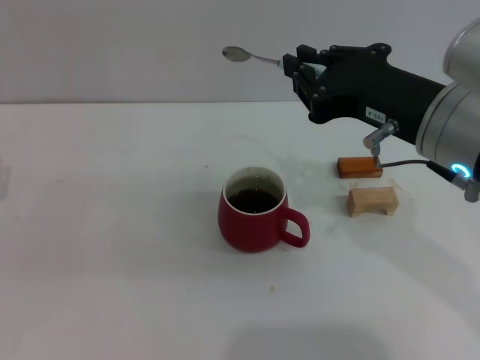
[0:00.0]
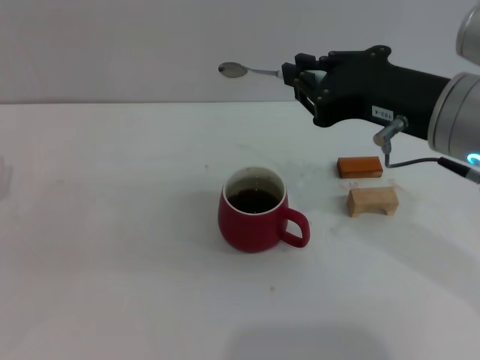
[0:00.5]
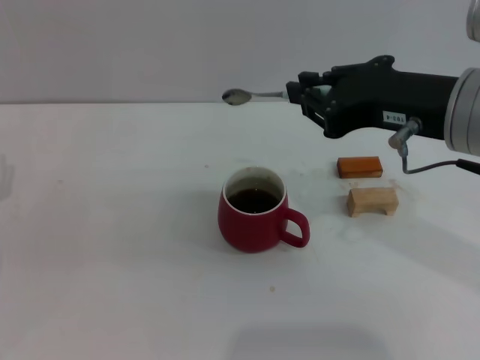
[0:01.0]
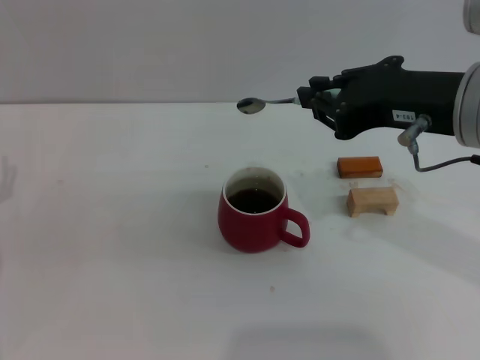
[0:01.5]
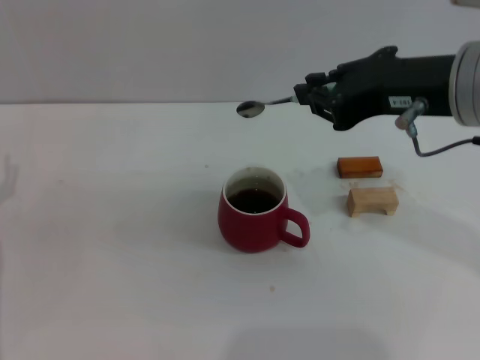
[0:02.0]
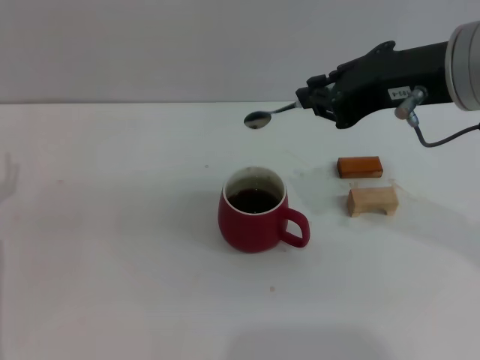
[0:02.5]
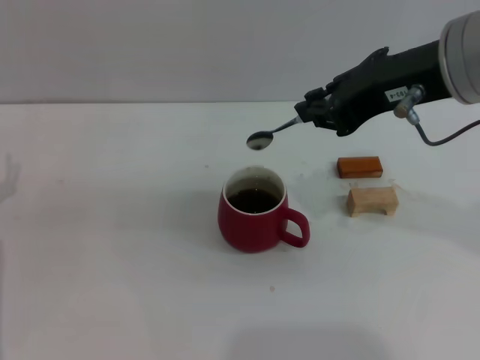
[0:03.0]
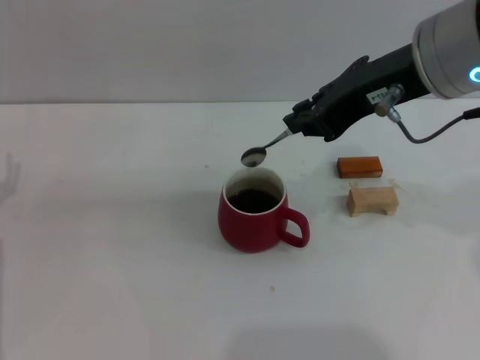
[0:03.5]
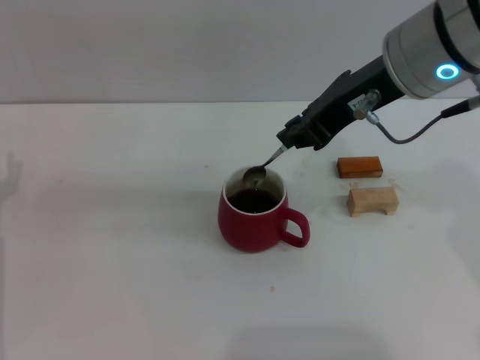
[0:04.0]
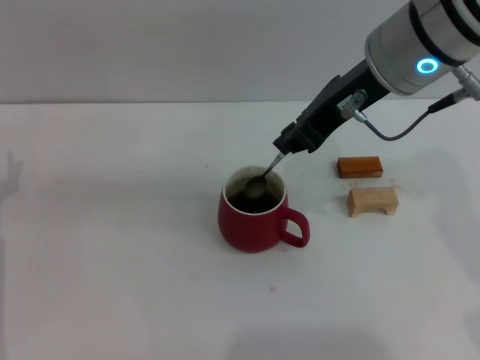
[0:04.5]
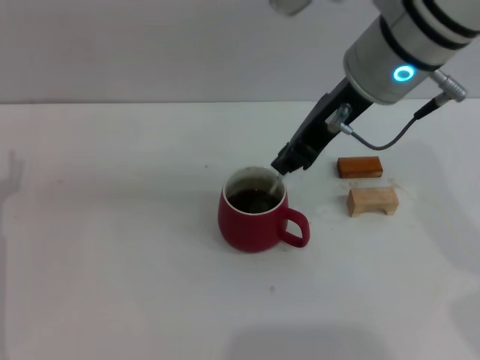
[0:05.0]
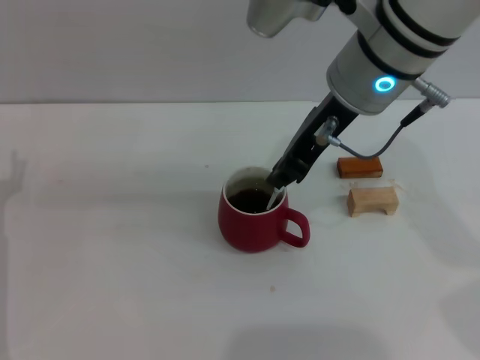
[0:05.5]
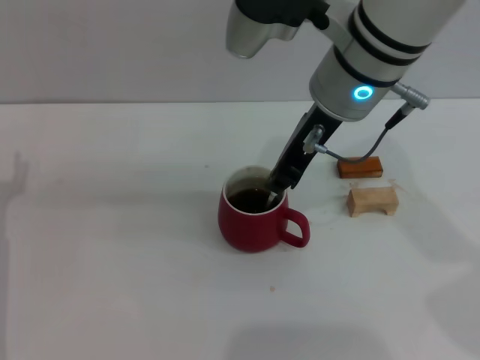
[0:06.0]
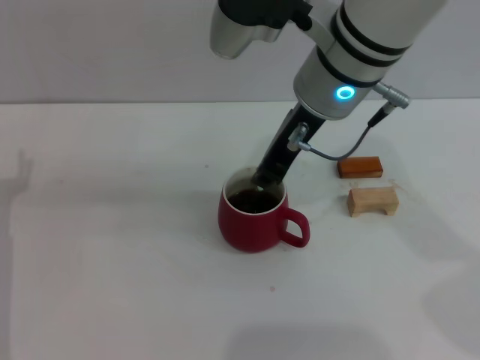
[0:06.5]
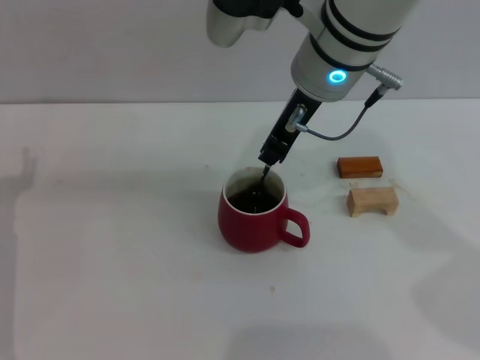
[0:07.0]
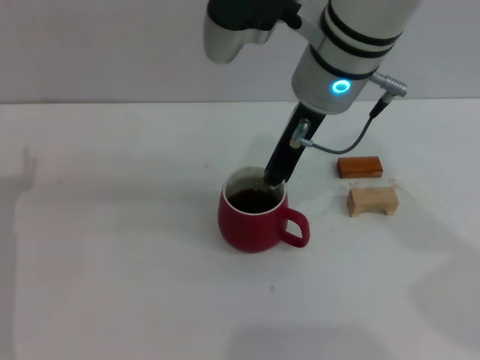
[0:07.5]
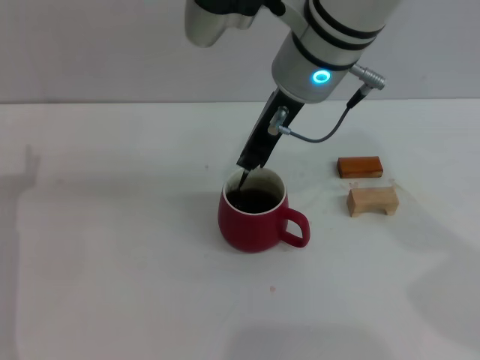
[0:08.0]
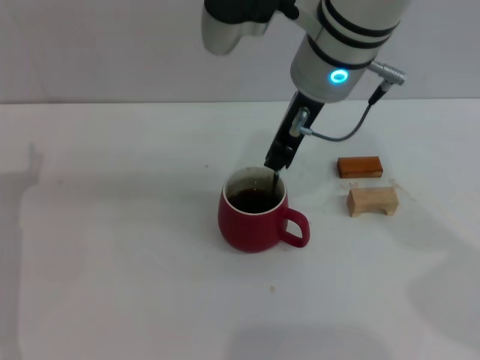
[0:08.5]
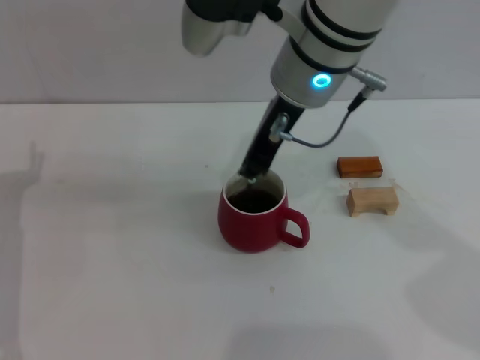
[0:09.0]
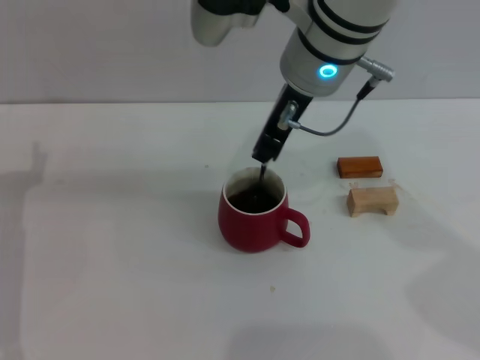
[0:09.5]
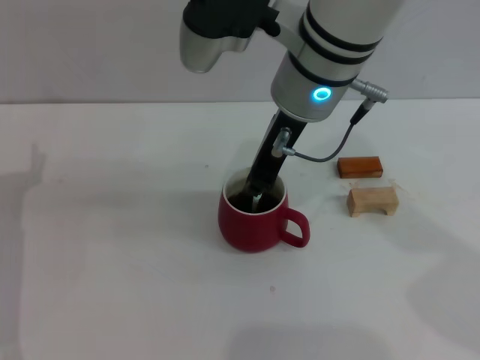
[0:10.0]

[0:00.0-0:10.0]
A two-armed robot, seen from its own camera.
Task of the whole recording: Move the red cup to the center, lift the blue spoon, stir it three times in the cup, and put the spoon into the cup.
0:00.0 to 0:02.0: The right gripper shifts by roughly 5 cm.
0:02.0 to 0:04.0: The right gripper travels forward by approximately 5 cm.
0:04.0 to 0:06.0: The right gripper travels to the left by roughly 5 cm.
0:06.0 to 0:10.0: The grippers stay close to where they were, moving slightly.

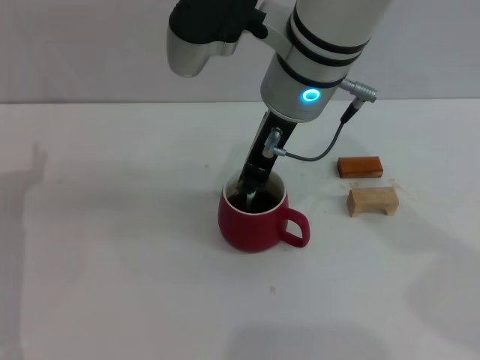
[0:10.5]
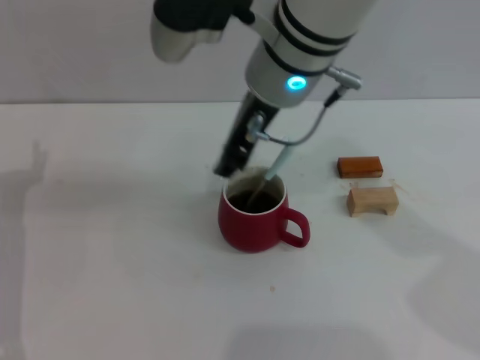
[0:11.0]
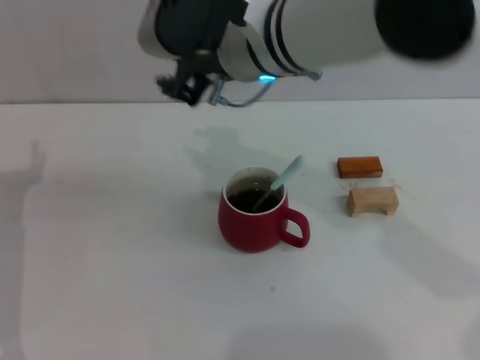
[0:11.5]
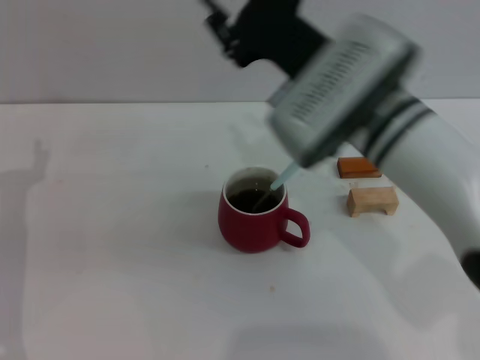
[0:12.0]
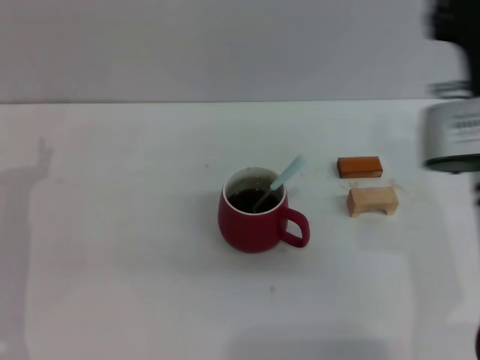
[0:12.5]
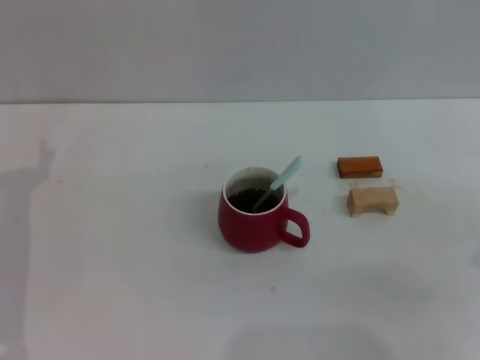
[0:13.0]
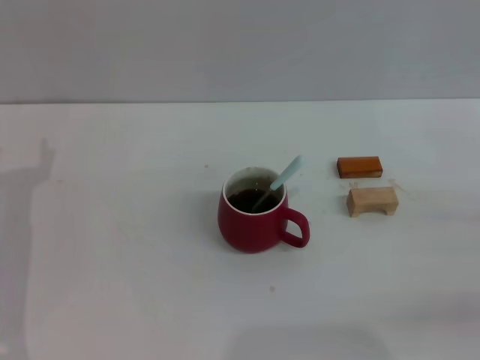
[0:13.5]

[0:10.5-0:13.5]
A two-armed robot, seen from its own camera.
Task of the whole recording: Move the red cup to the center, lift the blue spoon, stir it three times in the cup, and put the spoon into the cup.
0:10.5 to 0:12.0: The right gripper moves to the right and downward, approximately 10 cm.
0:12.0 to 0:13.5: The right gripper goes roughly 30 cm to the right and downward.
